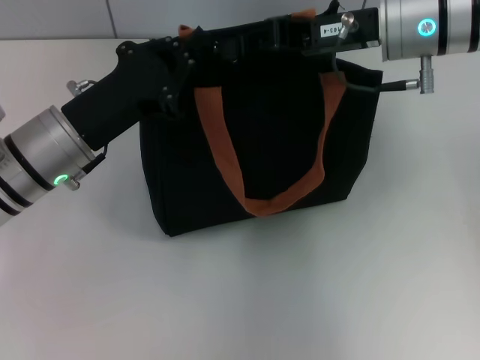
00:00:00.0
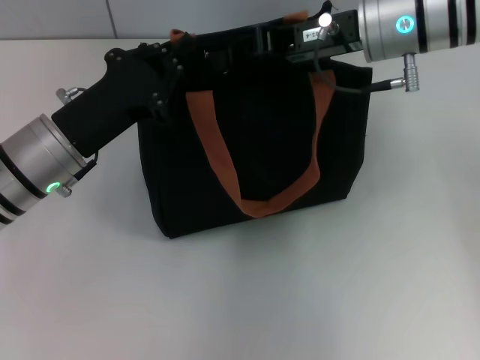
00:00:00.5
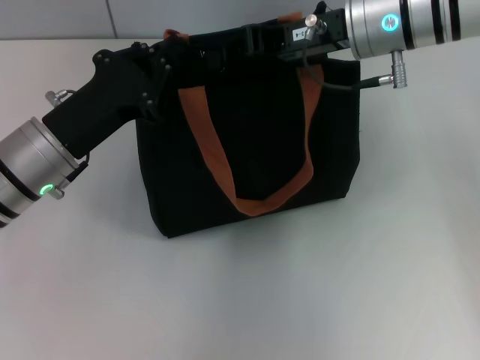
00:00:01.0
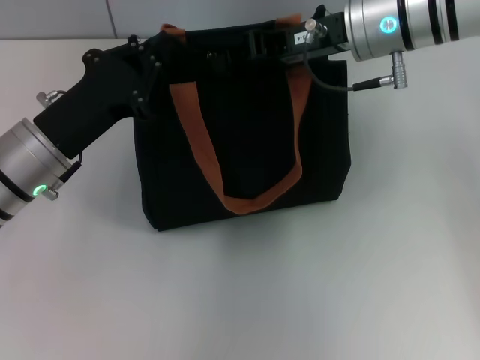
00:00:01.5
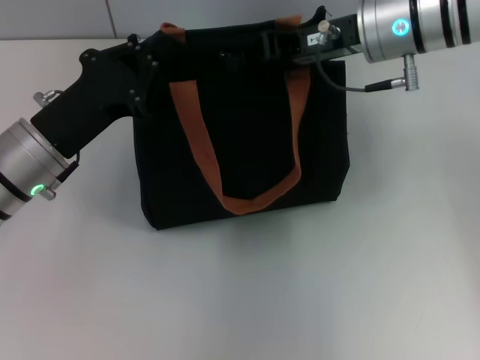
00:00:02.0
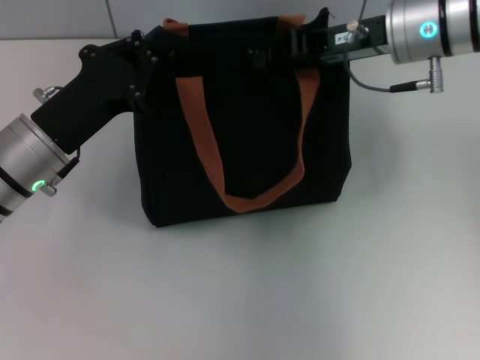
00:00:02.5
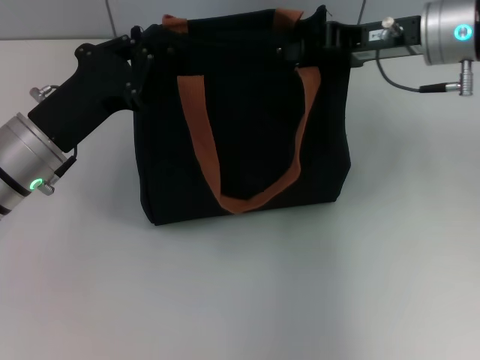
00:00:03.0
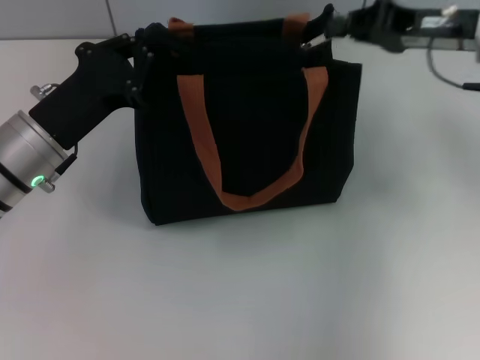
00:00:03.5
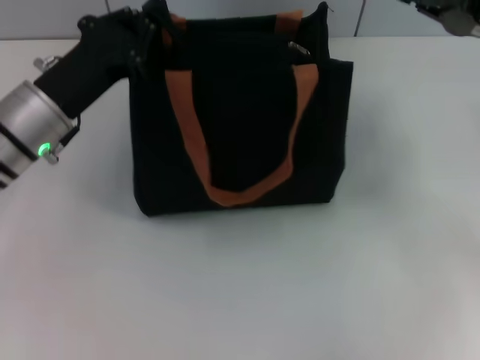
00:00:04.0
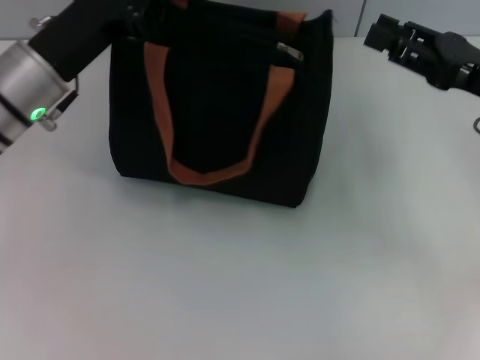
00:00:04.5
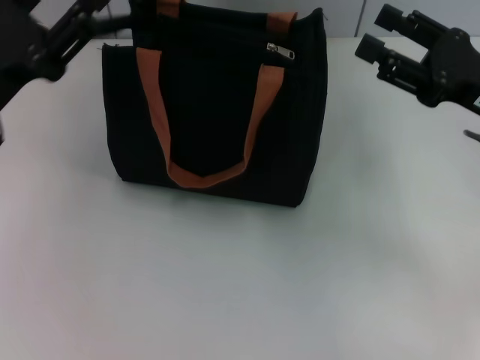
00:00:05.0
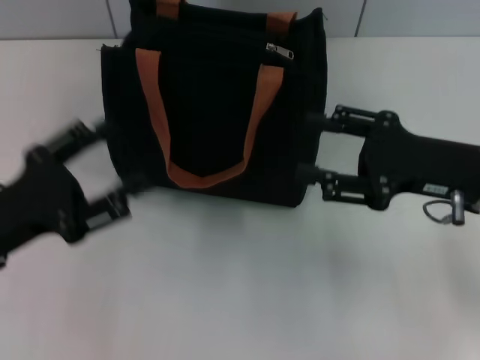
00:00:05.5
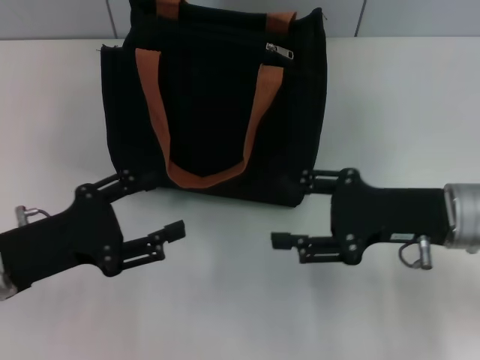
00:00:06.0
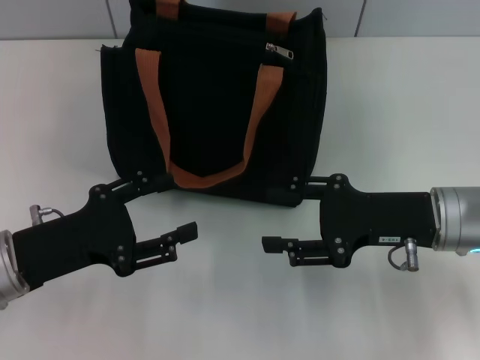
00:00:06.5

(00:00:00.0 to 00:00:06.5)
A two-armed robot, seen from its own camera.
Step, 00:00:00.0 - 00:00:03.0: Pull up the zipper with your right hand.
Step, 00:00:04.0 - 00:00:05.0: Grab the zipper with your left hand.
00:00:00.0 - 00:00:02.0: The grippers stay close to where they were, moving slightly.
00:00:02.0 - 00:00:04.5: The right gripper shifts roughly 15 cm to the right and backward. The left gripper moves approximately 5 cm.
00:00:04.5 - 00:00:06.5: The right gripper moves to the left and downward, some 10 cm, and opens. Meanwhile the left gripper travels backward and downward by roughly 15 cm, and opens.

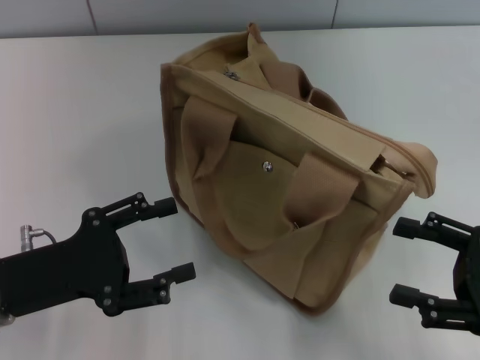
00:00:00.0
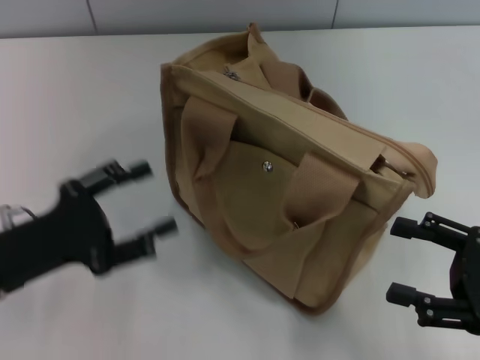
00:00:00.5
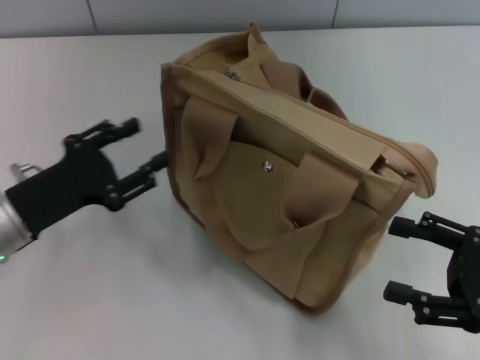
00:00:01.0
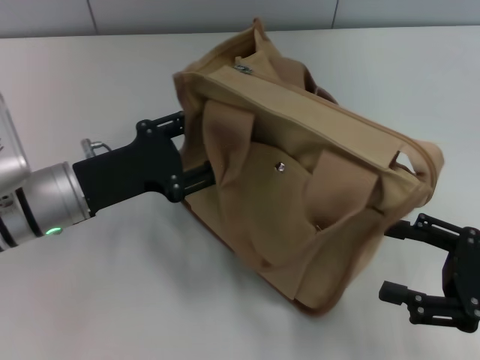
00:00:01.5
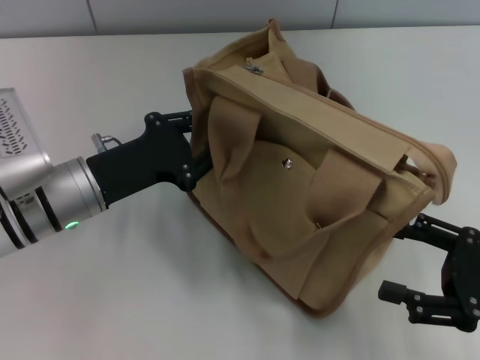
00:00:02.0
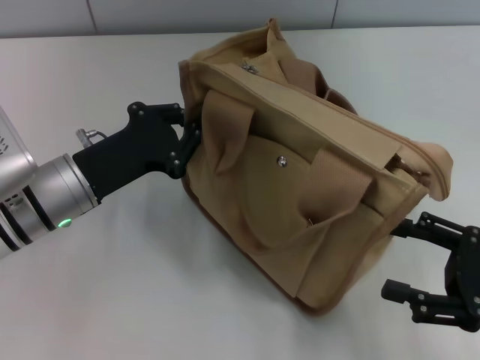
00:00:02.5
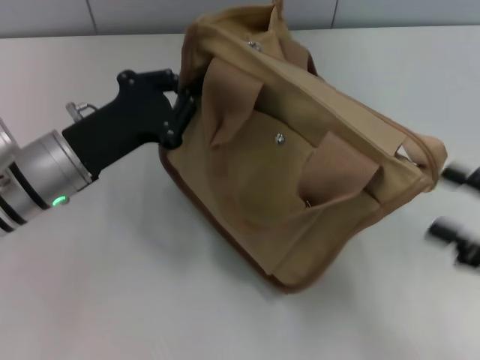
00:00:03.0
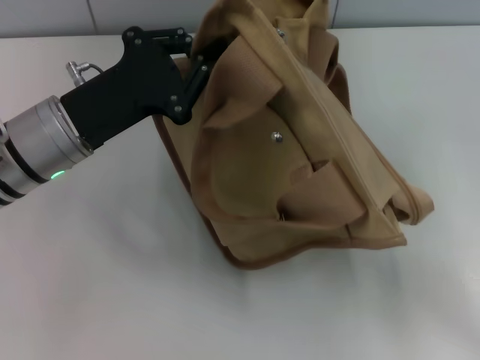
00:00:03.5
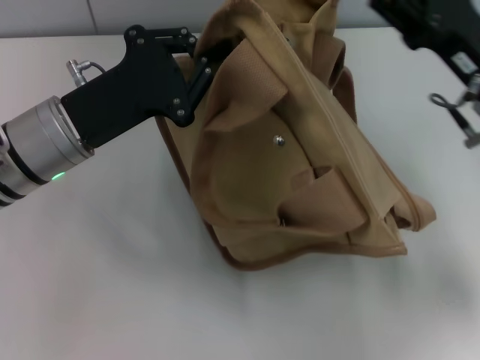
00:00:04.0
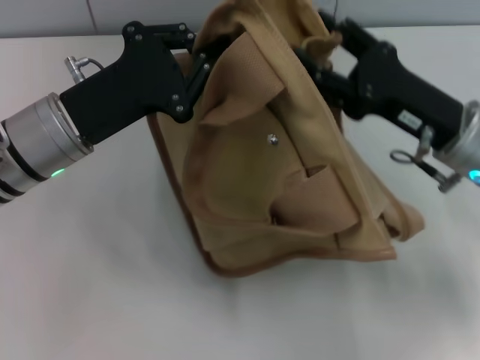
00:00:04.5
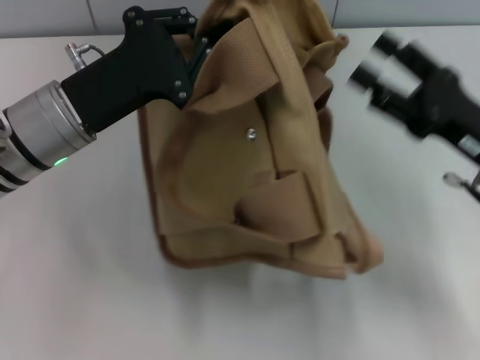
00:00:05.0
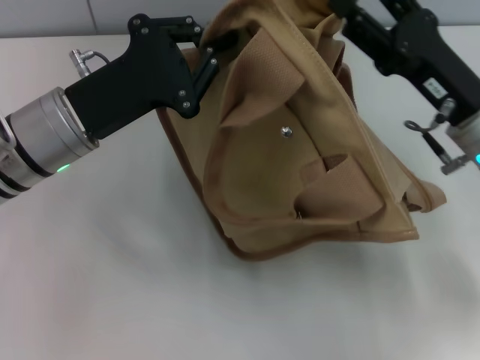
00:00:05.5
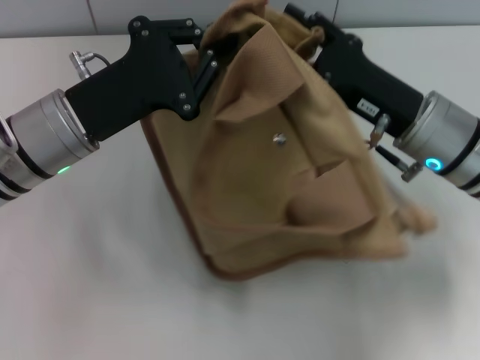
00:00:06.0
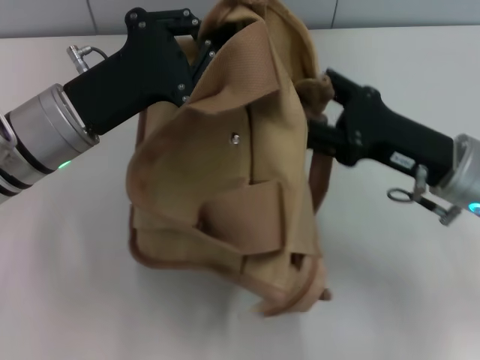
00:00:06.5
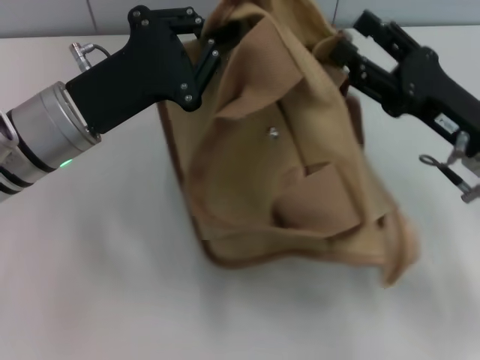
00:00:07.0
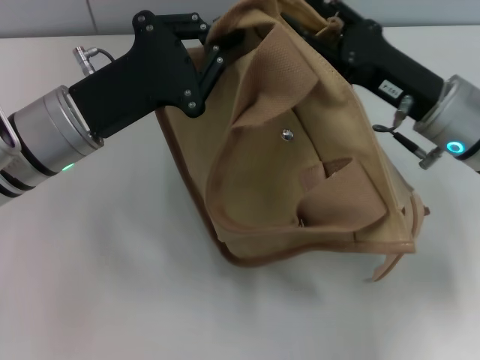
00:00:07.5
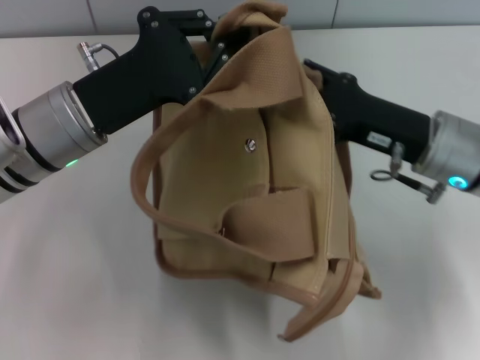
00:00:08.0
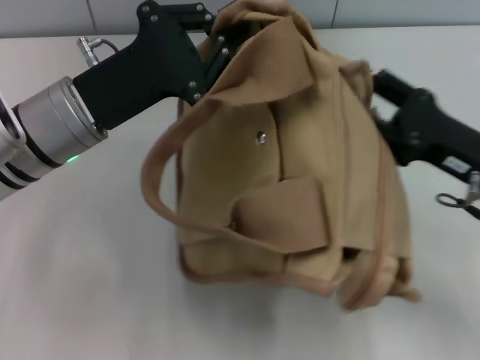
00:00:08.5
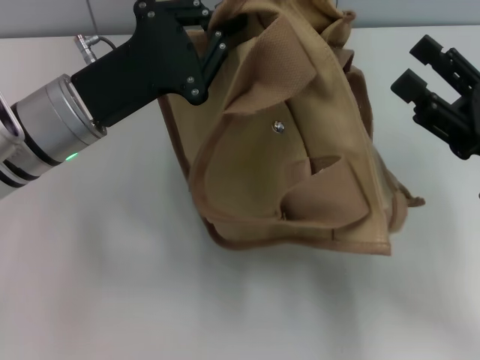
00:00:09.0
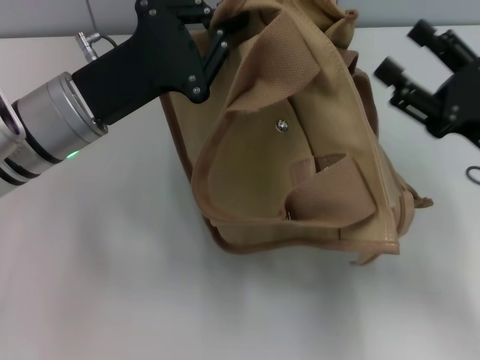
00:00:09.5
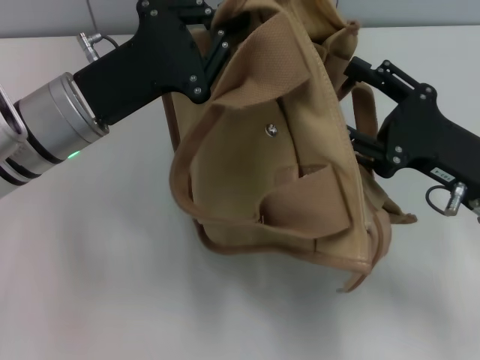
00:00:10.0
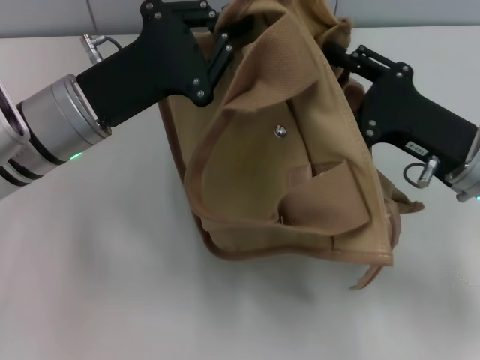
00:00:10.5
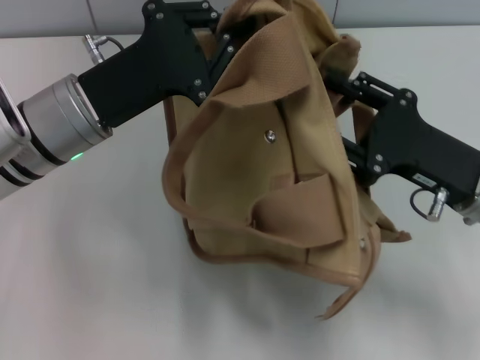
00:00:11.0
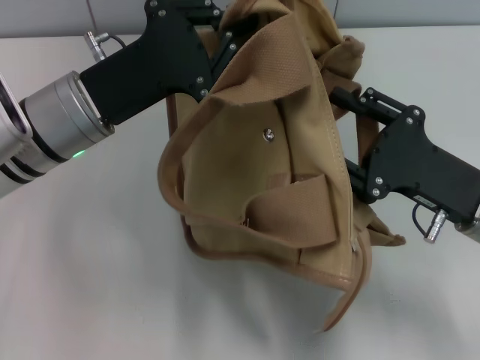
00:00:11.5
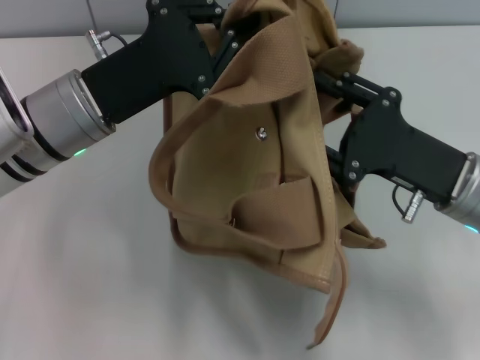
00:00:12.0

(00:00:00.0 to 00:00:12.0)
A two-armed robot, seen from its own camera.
00:00:00.0 - 00:00:02.0: The left gripper travels forward and to the right by some 10 cm, and closes up.
00:00:02.0 - 00:00:04.0: The right gripper goes approximately 15 cm forward, to the left and upward, while the left gripper moves upward, approximately 5 cm, and closes its fingers.
00:00:04.0 - 00:00:06.0: The right gripper moves some 5 cm.

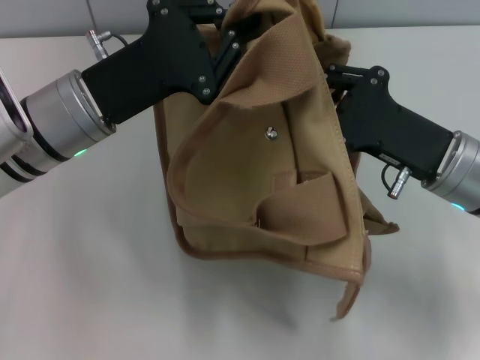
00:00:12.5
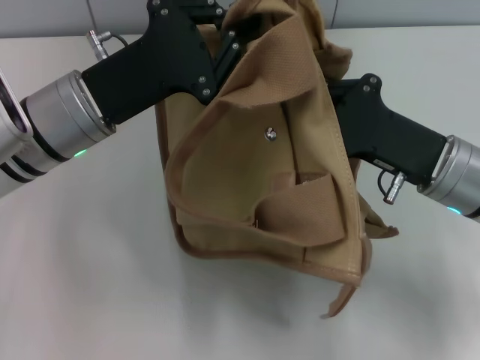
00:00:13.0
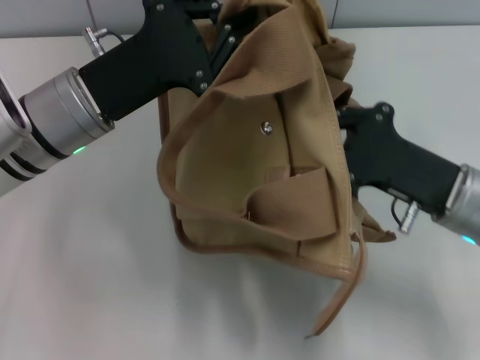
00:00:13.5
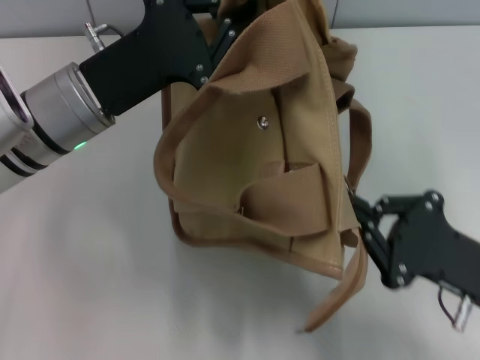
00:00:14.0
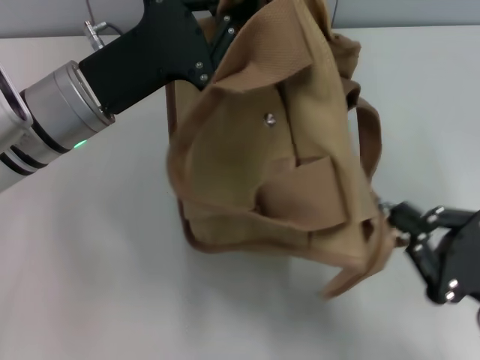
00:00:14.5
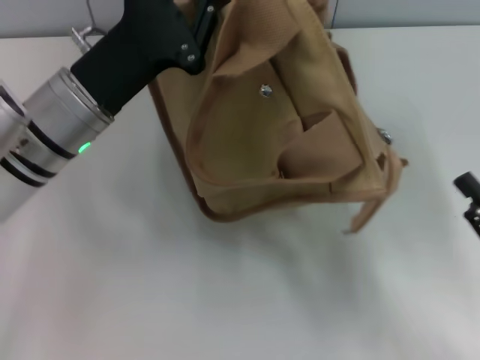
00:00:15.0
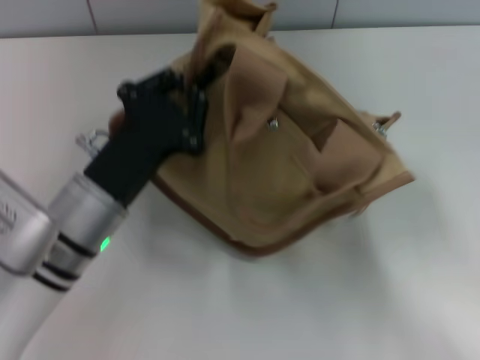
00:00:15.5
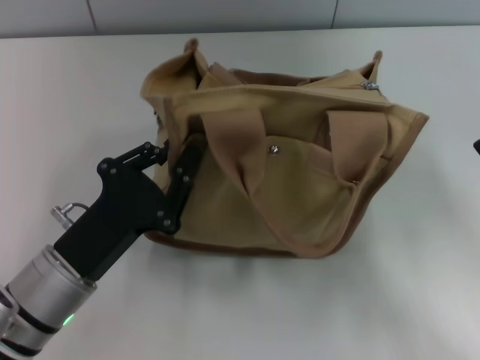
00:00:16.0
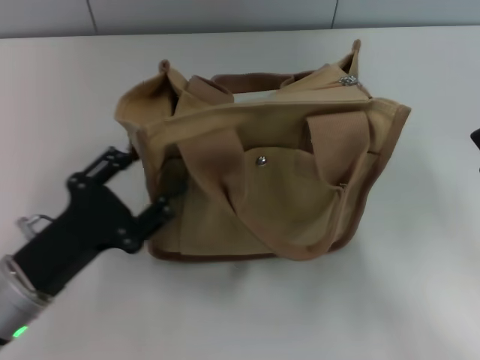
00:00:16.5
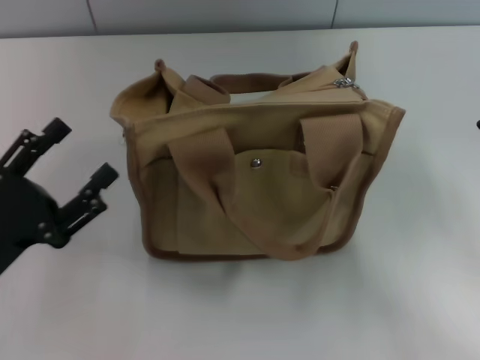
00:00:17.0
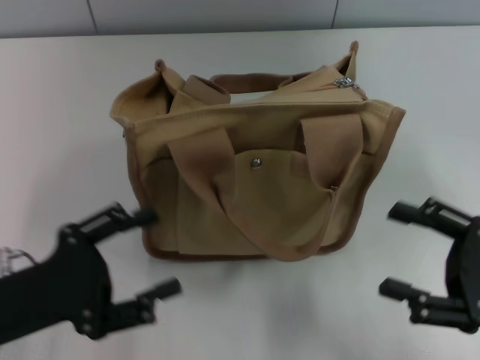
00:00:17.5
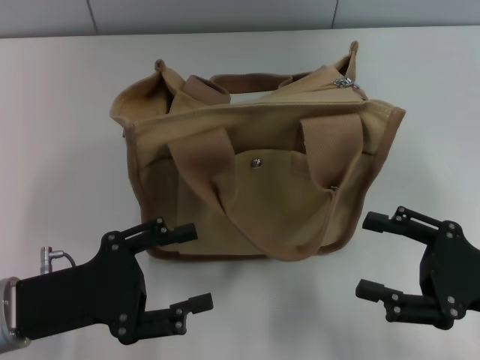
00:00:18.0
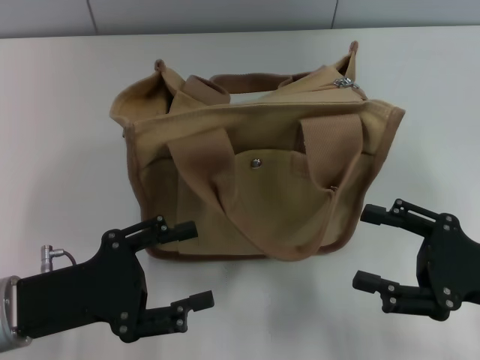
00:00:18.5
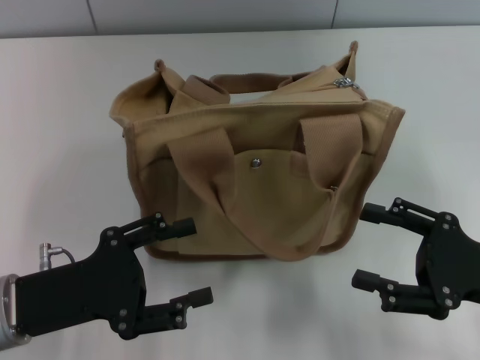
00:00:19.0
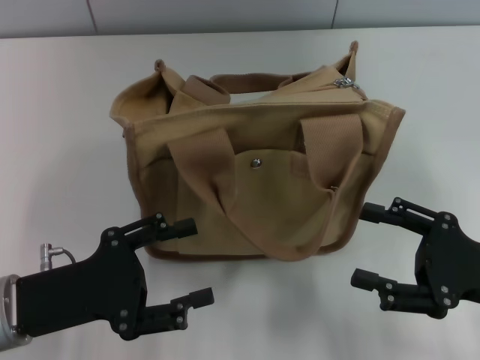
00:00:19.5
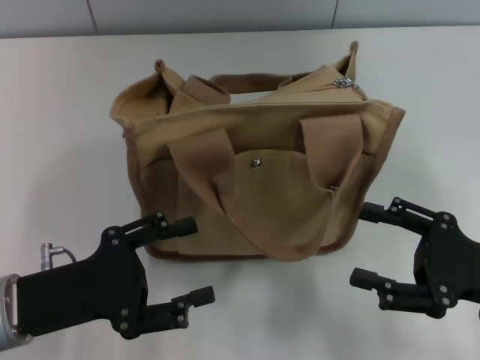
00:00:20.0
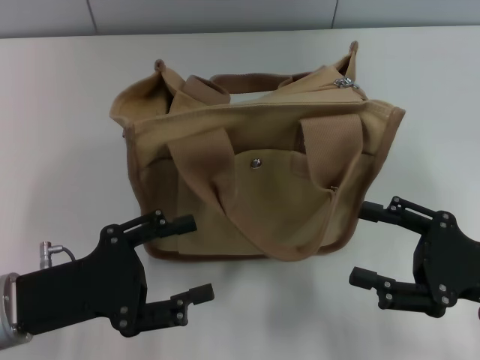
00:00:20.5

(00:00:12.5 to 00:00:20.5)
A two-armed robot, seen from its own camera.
Step, 00:00:12.5 - 00:00:14.5: Pull open the zipper with your right hand.
Step, 00:00:15.0 - 00:00:16.5: Grab the bag with your left hand.
00:00:12.5 - 00:00:14.5: The right gripper goes approximately 15 cm backward and to the right, and closes up.
00:00:14.5 - 00:00:16.5: The left gripper moves backward, downward and to the left, some 20 cm, and opens. Meanwhile the right gripper opens.
00:00:16.5 - 00:00:18.5: The left gripper opens its fingers.
00:00:18.5 - 00:00:20.5: Both grippers stay about where they are.
